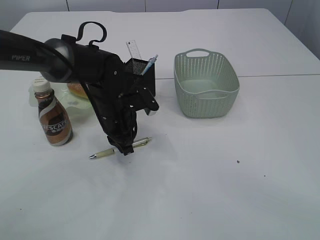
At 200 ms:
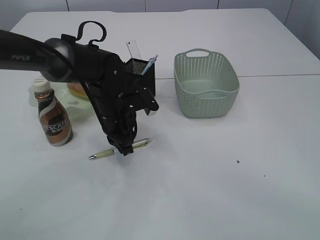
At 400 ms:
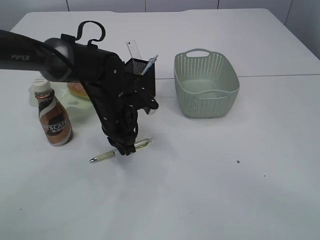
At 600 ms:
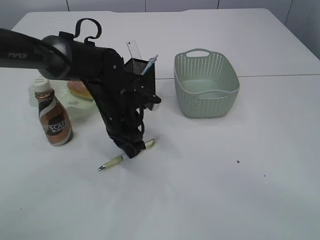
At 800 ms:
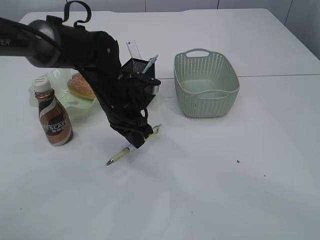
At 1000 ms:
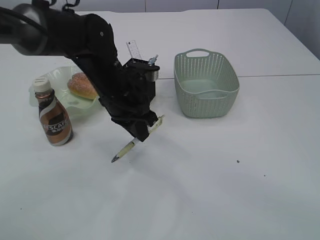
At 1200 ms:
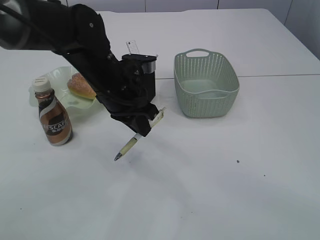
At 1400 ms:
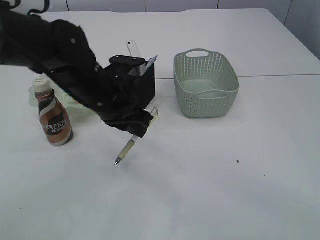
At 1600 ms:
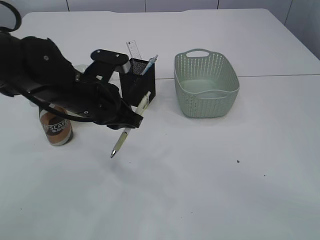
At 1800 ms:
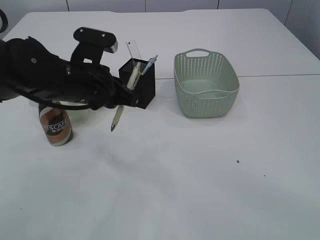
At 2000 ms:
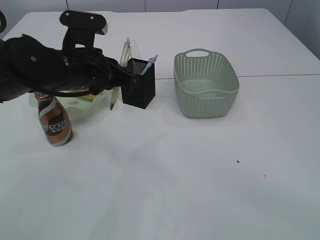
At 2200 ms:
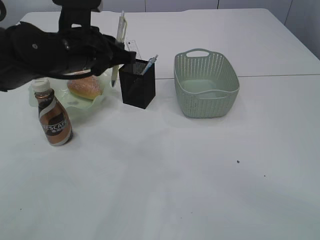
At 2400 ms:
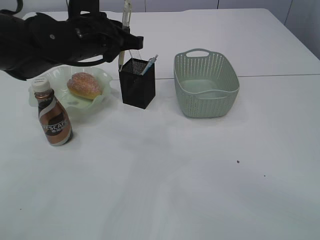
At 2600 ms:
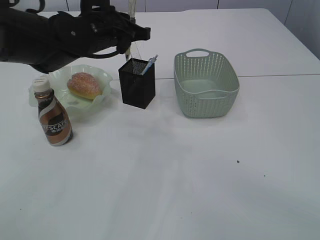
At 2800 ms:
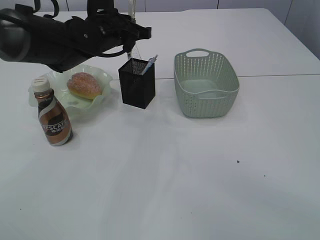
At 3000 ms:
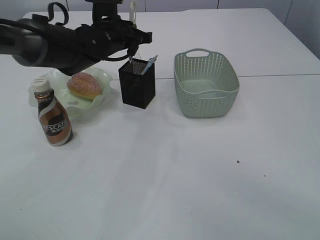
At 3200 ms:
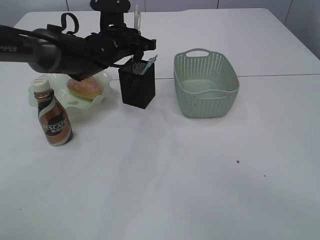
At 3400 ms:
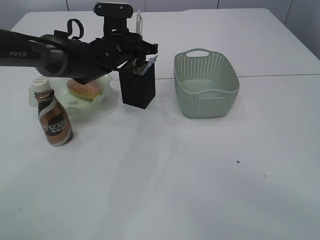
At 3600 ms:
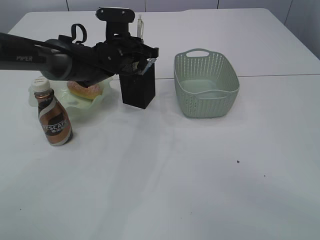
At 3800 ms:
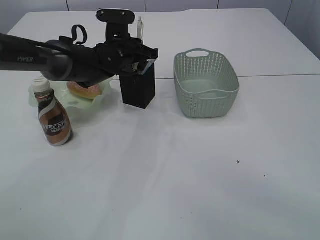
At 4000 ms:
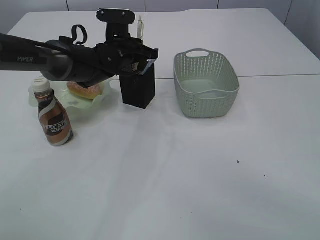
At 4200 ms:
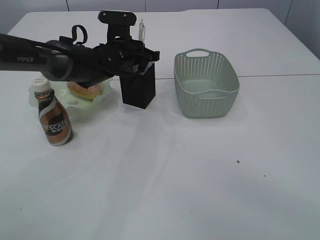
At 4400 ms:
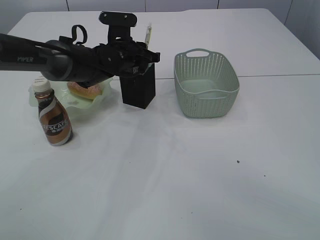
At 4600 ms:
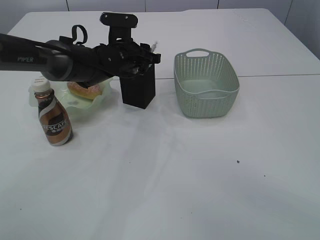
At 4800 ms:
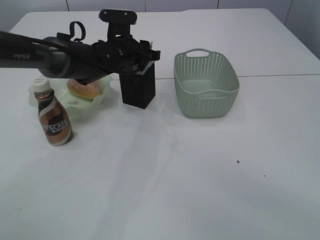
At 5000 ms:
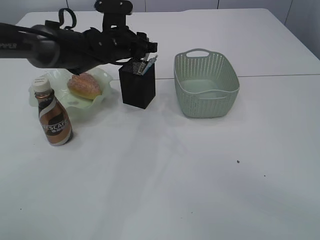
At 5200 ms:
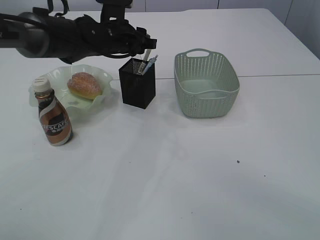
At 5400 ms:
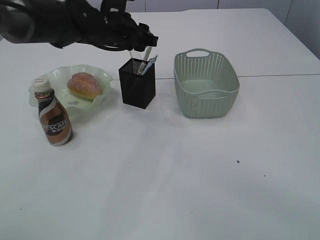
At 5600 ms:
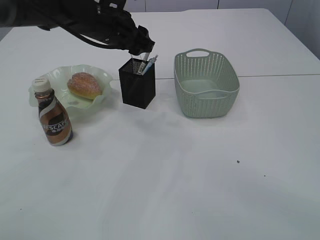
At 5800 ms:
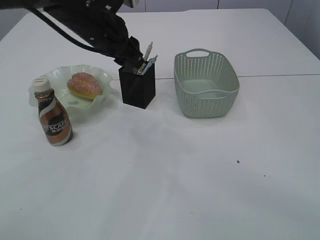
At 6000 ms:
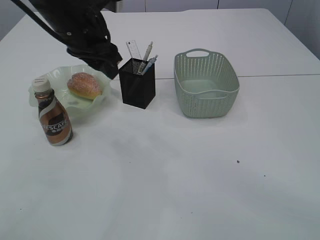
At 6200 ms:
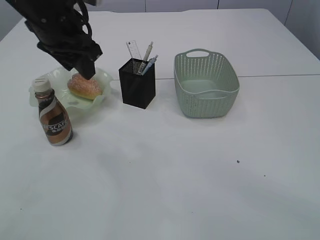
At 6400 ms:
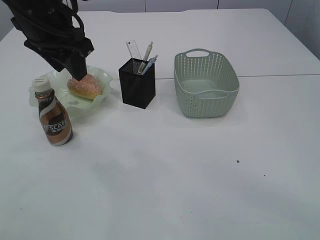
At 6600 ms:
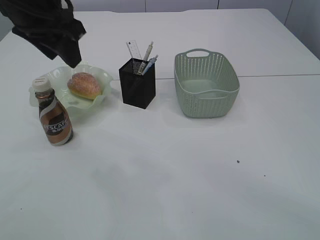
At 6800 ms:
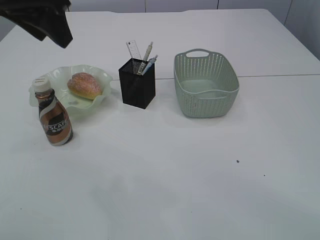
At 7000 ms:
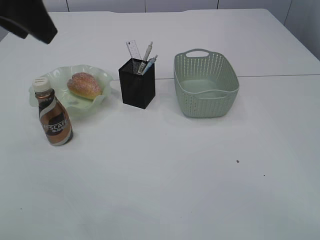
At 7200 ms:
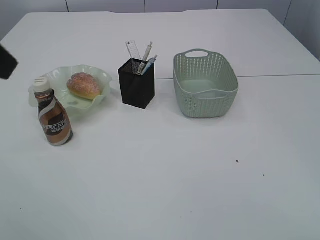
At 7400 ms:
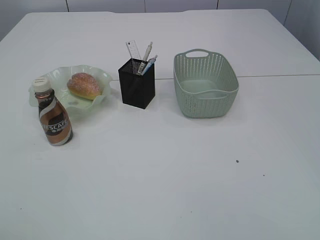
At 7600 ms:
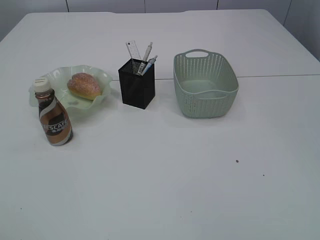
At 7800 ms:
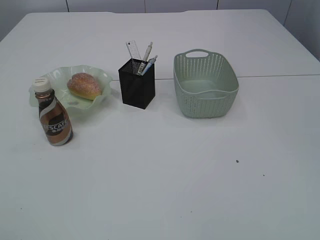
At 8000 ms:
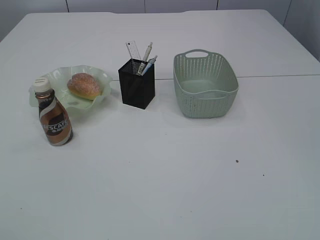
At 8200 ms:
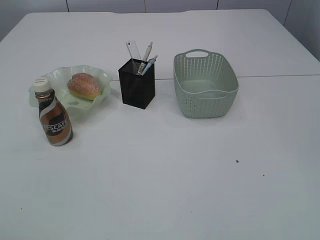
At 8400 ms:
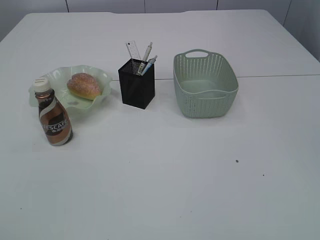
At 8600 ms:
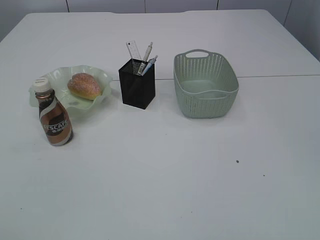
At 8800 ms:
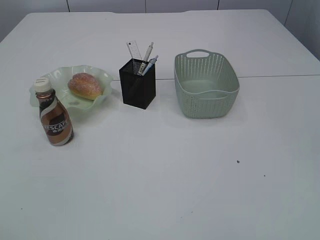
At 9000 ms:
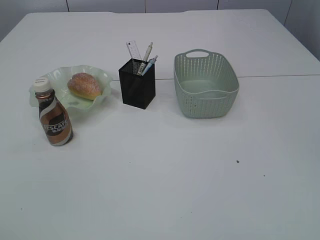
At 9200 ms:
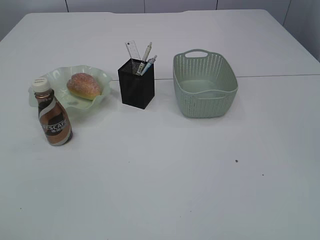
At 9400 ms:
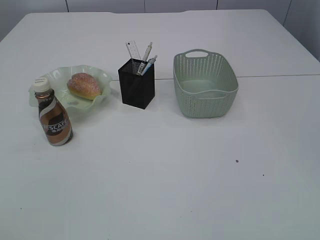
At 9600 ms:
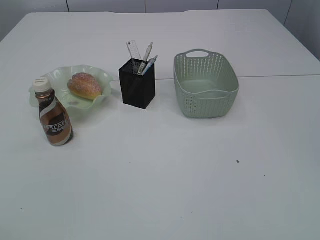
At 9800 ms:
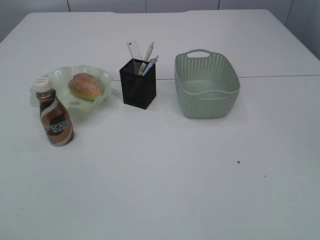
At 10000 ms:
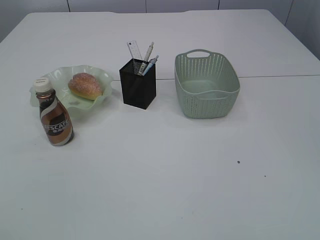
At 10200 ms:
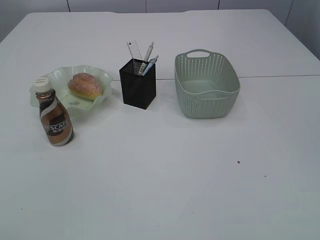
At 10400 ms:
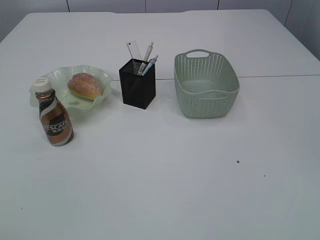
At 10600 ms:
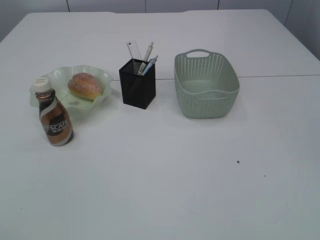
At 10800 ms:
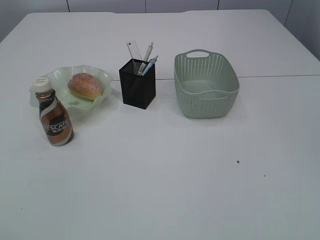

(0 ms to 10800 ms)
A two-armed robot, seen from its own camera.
Step, 1200 ms - 5400 ms: Place the pen into the pen holder.
0 ms - 1600 ms: The left gripper moves upward and backward, about 10 cm.
1600 ms - 3000 ms: The left gripper is displaced forward by some 15 cm.
3000 ms - 4600 ms: The left gripper is displaced downward by roughly 5 cm, and opens.
4600 ms - 6200 ms: The left gripper is displaced upward, backward and to the left by roughly 20 cm.
6200 ms - 7800 ms: The left gripper heads backward and to the left, covering some 40 cm.

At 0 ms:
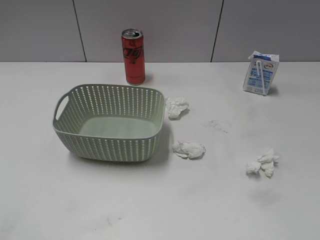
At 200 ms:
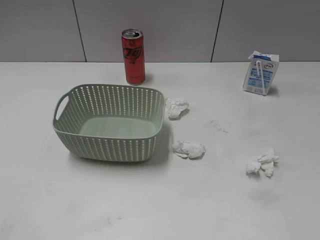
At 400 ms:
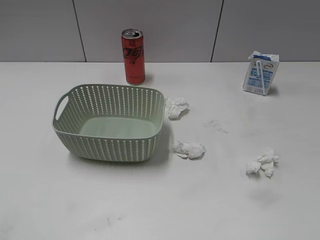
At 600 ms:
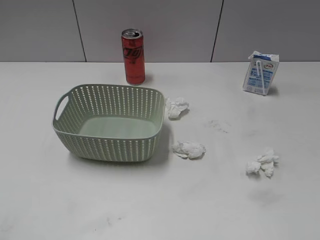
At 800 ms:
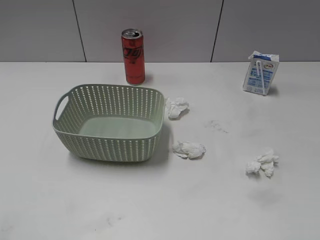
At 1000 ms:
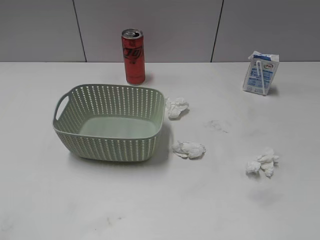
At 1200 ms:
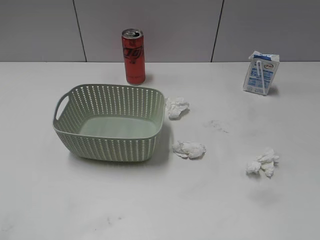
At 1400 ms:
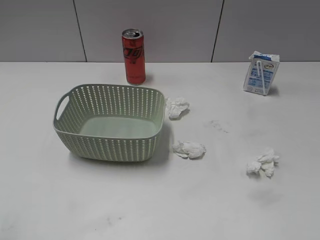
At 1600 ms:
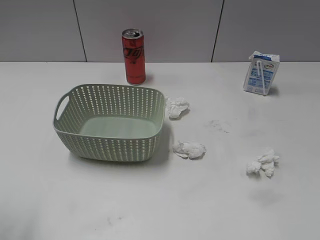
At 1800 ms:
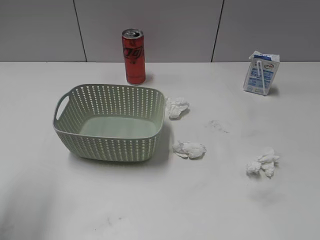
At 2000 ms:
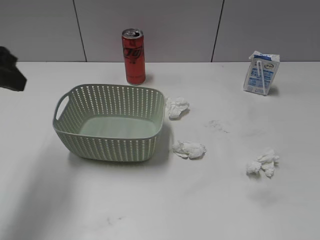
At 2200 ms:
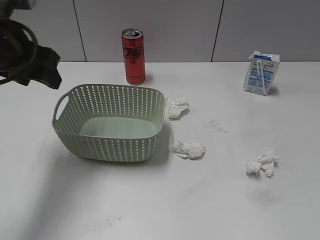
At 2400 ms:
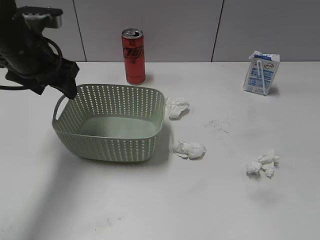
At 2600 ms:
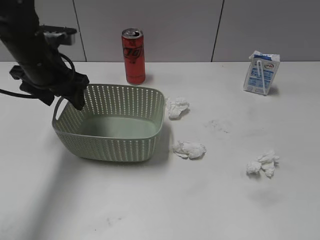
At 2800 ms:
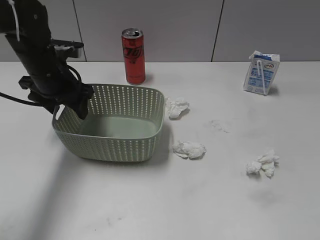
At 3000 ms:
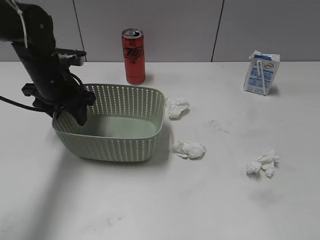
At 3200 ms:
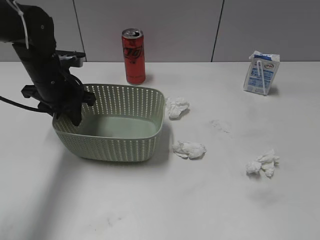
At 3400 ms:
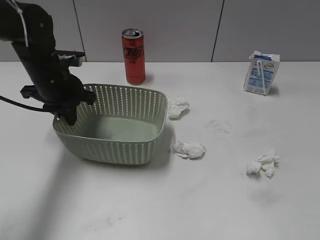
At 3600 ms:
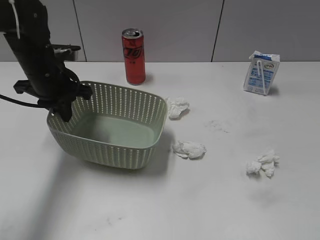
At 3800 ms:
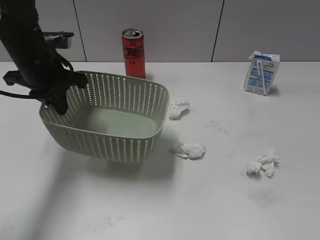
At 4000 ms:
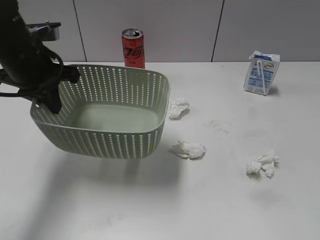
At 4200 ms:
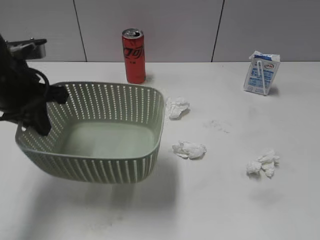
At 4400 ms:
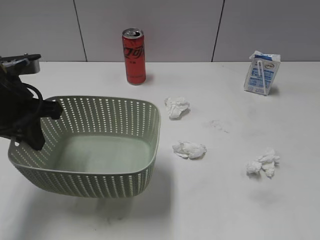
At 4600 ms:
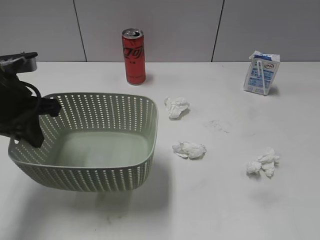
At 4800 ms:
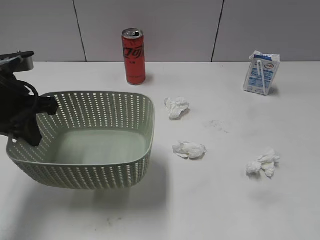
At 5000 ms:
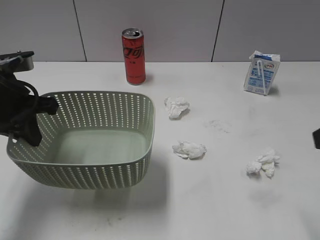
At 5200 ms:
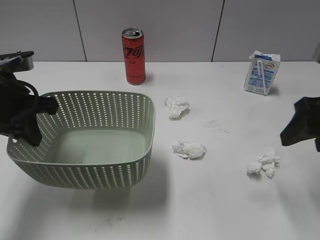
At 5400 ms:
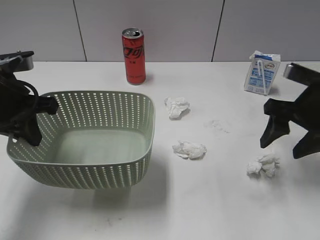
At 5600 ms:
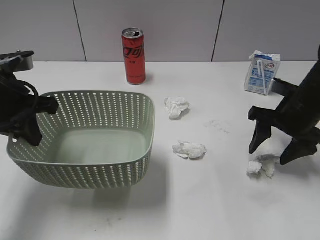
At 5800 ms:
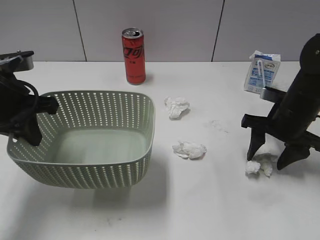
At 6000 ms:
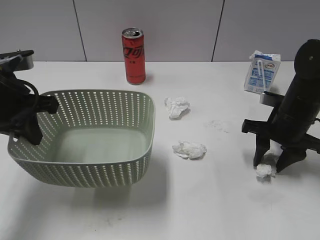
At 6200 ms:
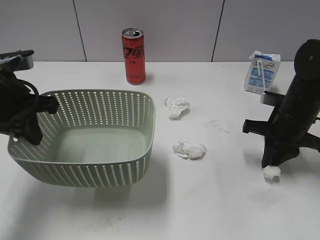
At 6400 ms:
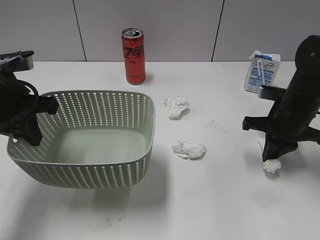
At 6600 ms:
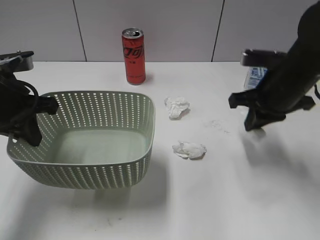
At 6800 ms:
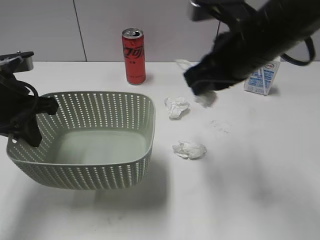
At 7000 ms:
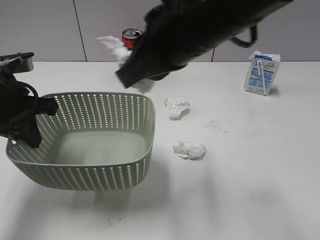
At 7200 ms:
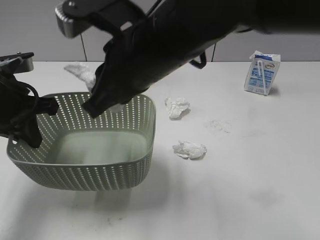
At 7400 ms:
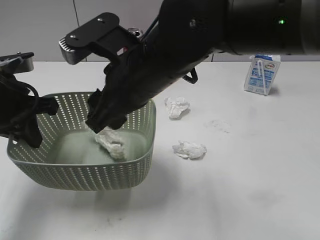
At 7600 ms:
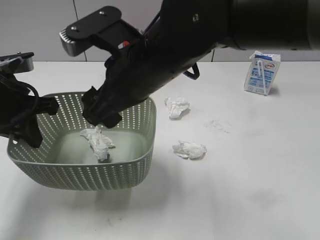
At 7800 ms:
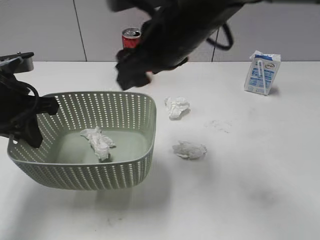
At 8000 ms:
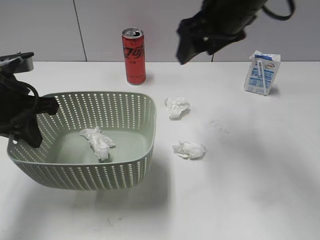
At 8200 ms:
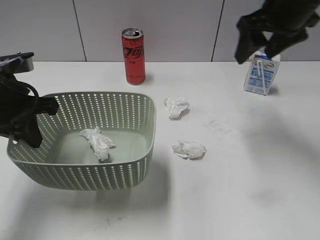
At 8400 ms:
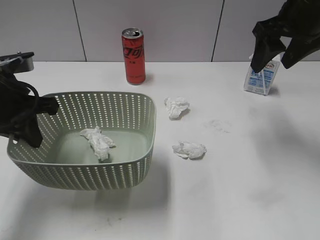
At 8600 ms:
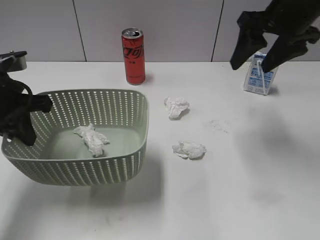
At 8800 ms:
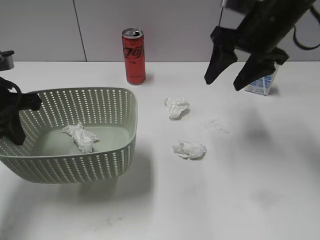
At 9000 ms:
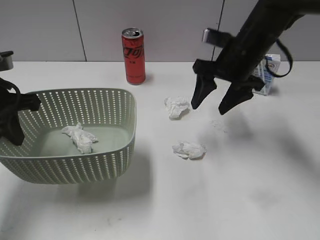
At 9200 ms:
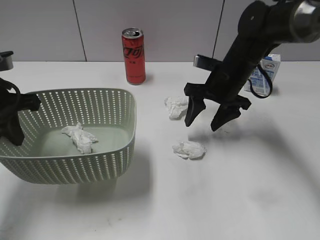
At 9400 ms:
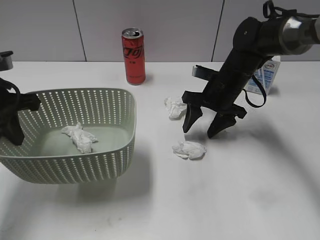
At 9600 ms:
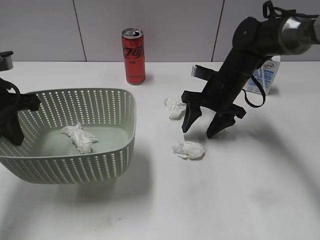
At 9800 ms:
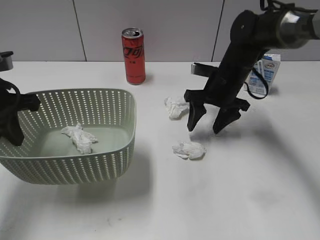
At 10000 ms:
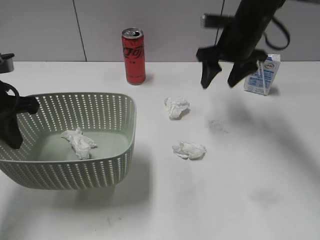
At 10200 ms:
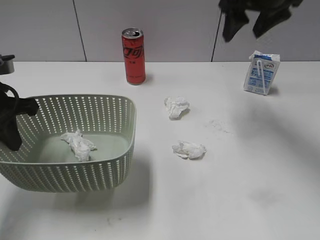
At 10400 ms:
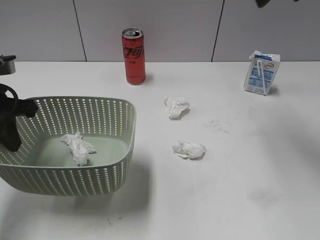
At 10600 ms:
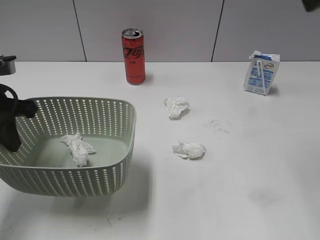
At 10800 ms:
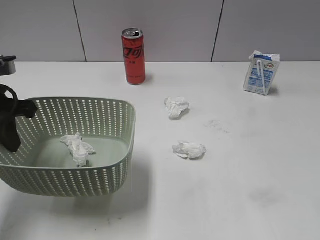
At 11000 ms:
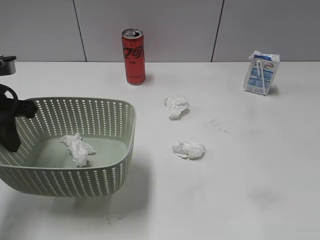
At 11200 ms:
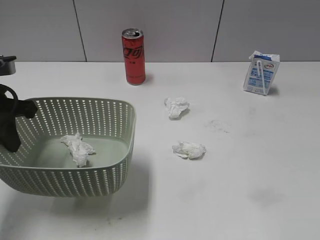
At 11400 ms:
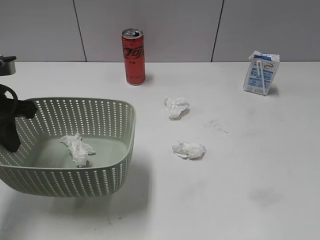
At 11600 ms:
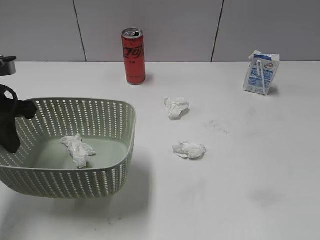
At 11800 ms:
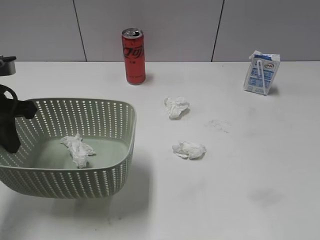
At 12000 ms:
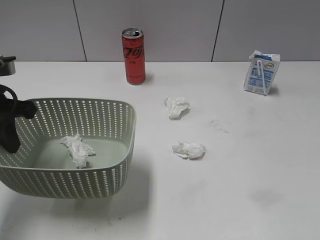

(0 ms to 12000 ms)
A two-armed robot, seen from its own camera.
Step, 2000 ms - 3400 ms: Grasp the basket with left gripper.
Step, 3600 ms - 4400 ms: Lift the basket with left gripper.
Step, 4600 ms - 6200 ms: Grasp the waste paper with right gripper.
Step, 6400 ms - 7600 ms: Place the waste paper in the basket with right gripper.
1600 ms - 3000 ms: The left gripper goes roughly 35 cm forward, downward and to the right.
3000 ms - 4400 ms: The left gripper is displaced backward and upward by some 10 cm, and closes.
4400 ms - 6000 ms: The right gripper heads forward and downward, covering some 35 cm.
6000 ms - 7600 ms: The right gripper shifts roughly 30 cm to the left and upward, and opens up.
7600 ms - 9000 ms: The right gripper heads to the right and forward, covering approximately 20 cm.
9000 ms - 10400 ms: The right gripper travels upward by about 20 cm.
10400 ms - 12000 ms: The right gripper moves backward, approximately 35 cm.
